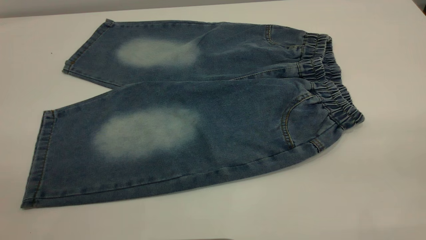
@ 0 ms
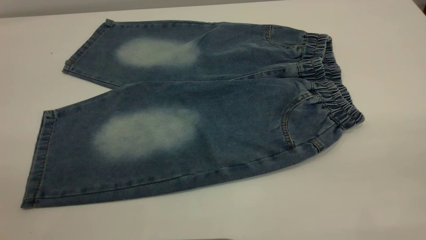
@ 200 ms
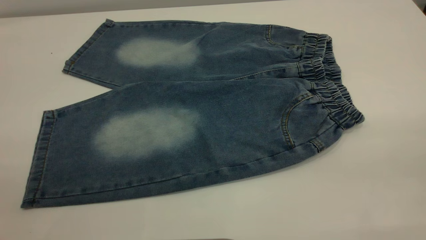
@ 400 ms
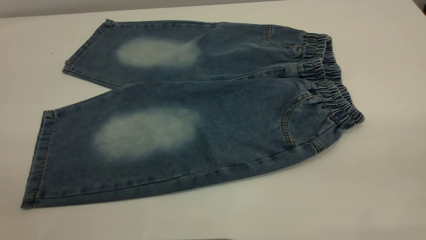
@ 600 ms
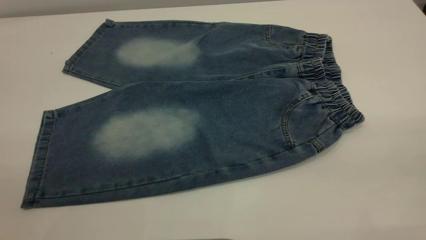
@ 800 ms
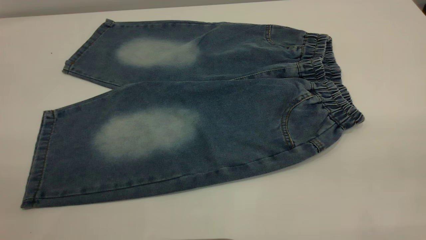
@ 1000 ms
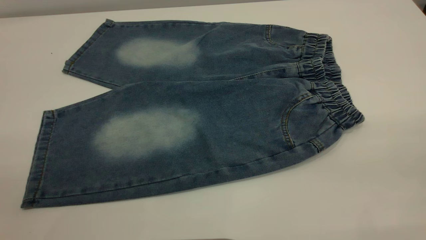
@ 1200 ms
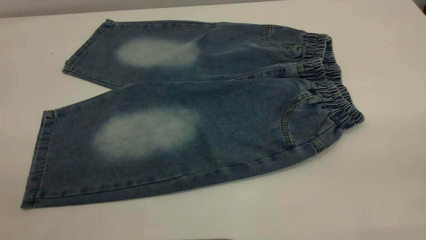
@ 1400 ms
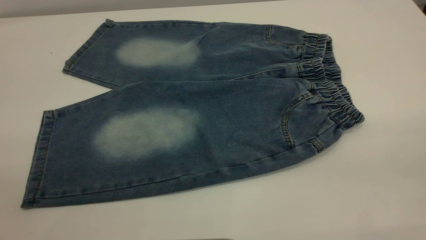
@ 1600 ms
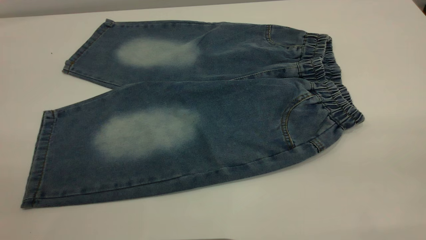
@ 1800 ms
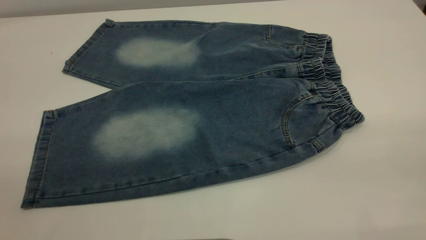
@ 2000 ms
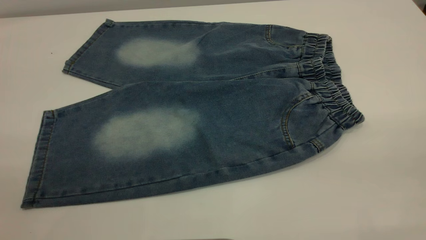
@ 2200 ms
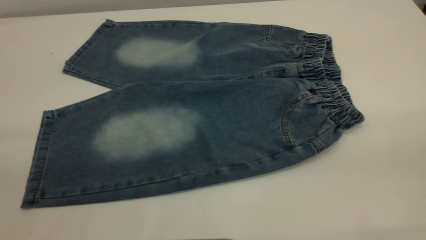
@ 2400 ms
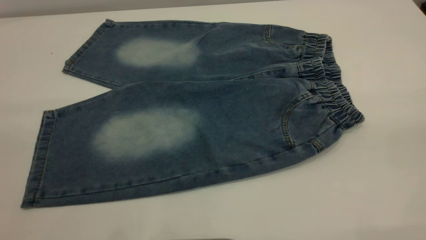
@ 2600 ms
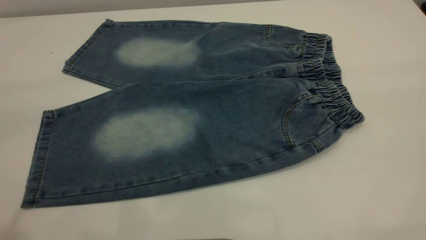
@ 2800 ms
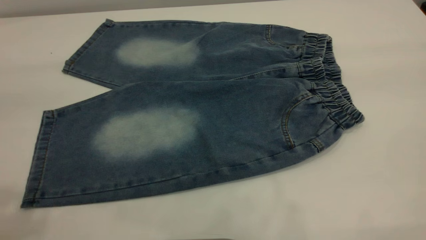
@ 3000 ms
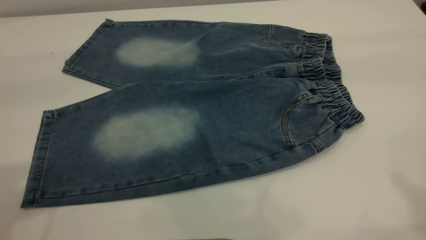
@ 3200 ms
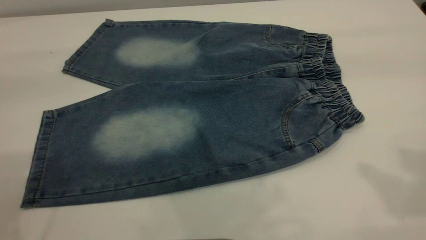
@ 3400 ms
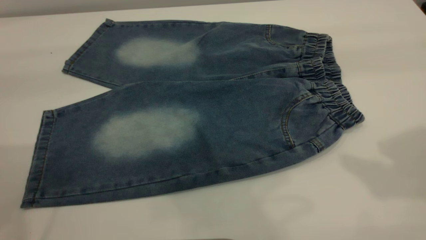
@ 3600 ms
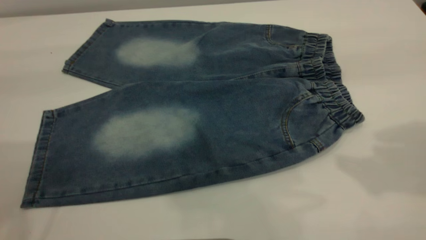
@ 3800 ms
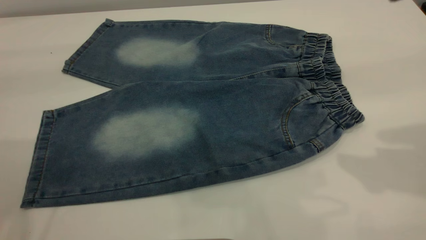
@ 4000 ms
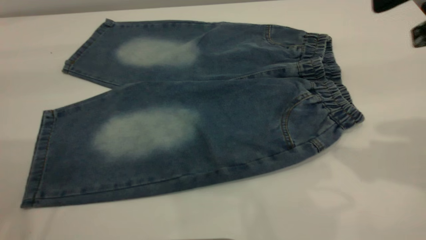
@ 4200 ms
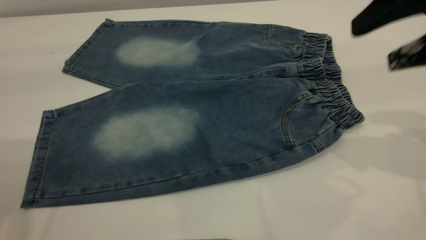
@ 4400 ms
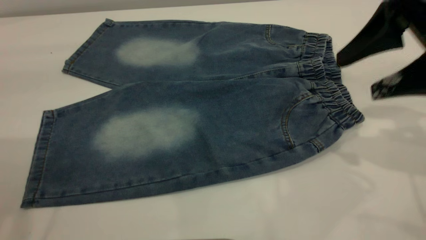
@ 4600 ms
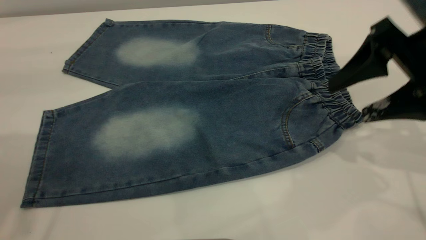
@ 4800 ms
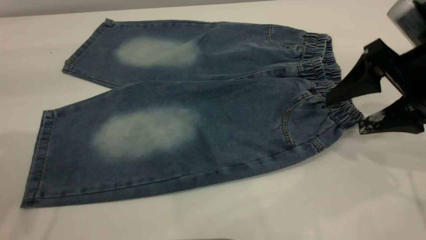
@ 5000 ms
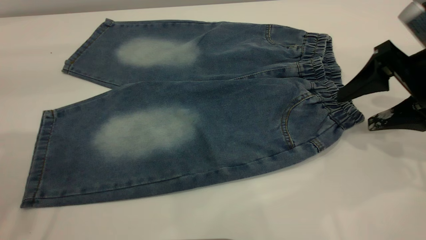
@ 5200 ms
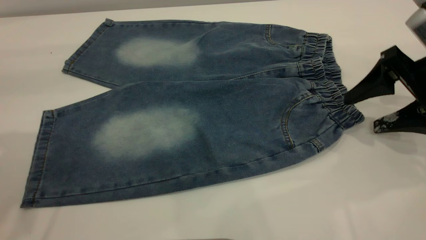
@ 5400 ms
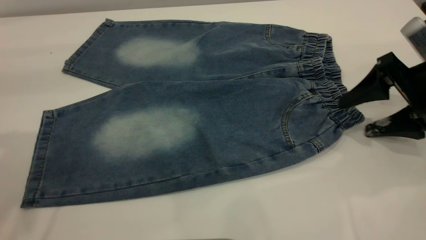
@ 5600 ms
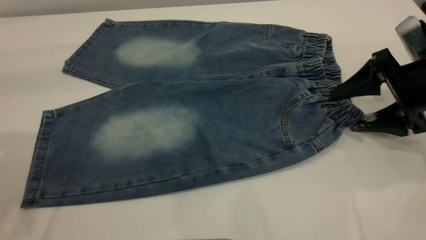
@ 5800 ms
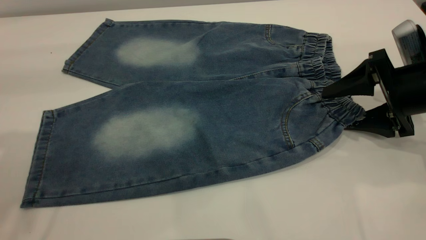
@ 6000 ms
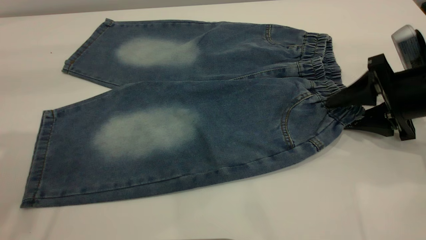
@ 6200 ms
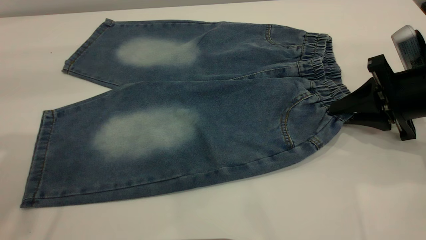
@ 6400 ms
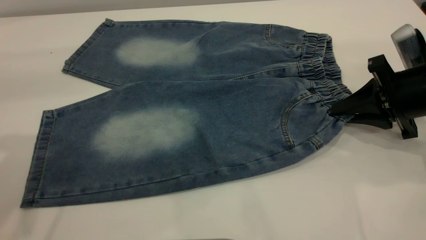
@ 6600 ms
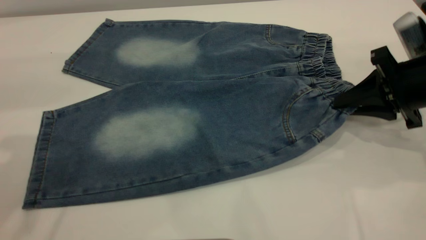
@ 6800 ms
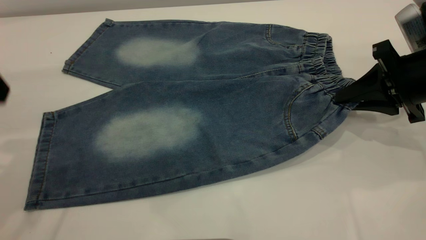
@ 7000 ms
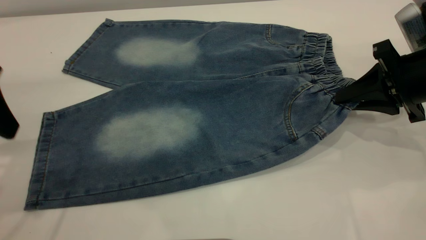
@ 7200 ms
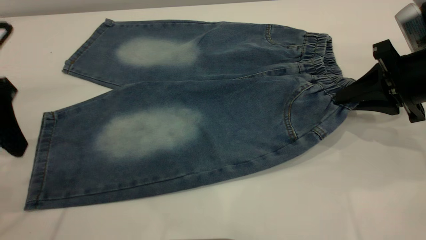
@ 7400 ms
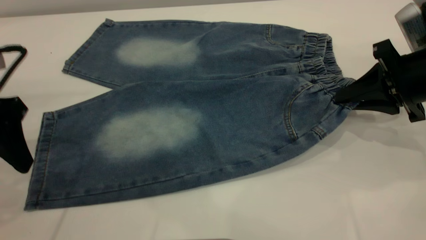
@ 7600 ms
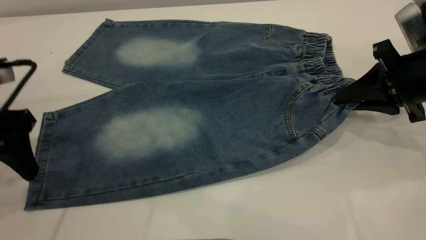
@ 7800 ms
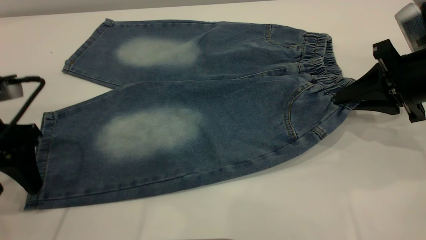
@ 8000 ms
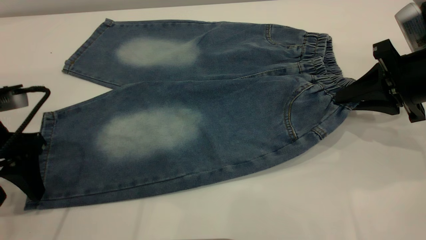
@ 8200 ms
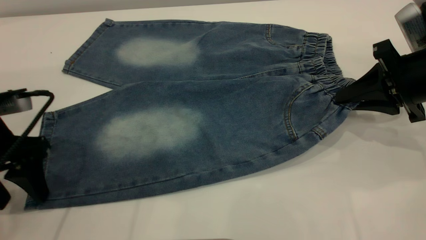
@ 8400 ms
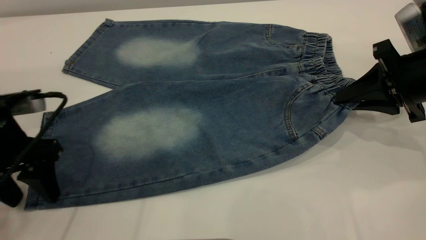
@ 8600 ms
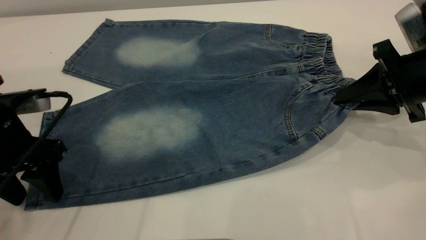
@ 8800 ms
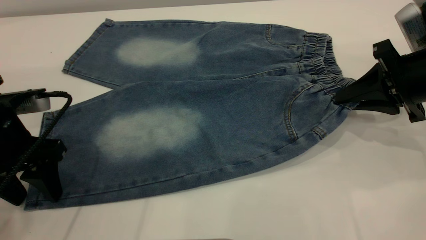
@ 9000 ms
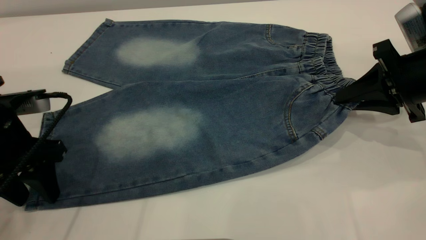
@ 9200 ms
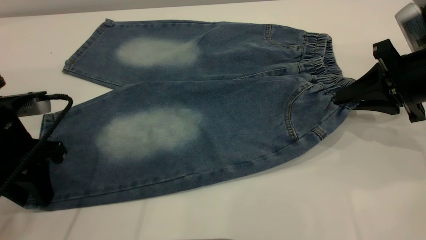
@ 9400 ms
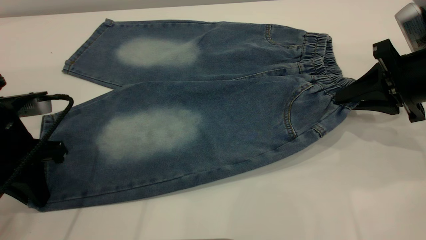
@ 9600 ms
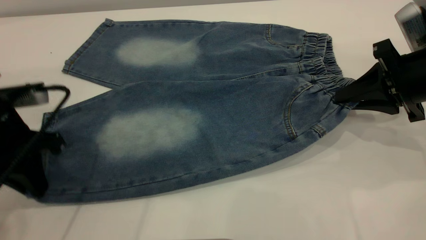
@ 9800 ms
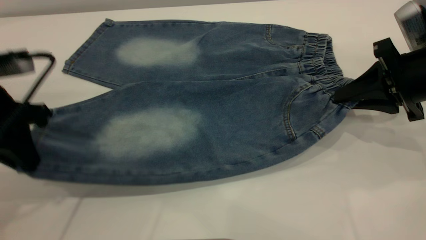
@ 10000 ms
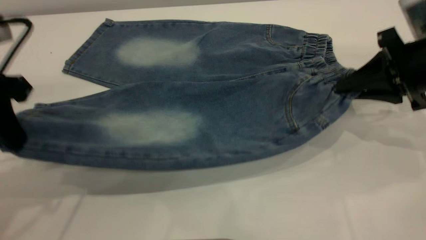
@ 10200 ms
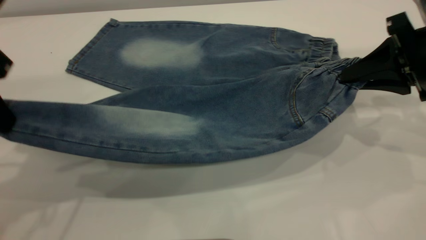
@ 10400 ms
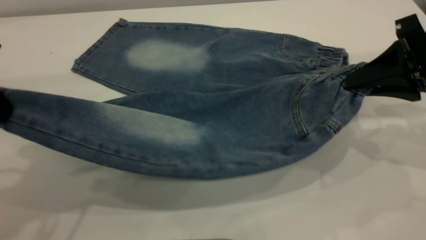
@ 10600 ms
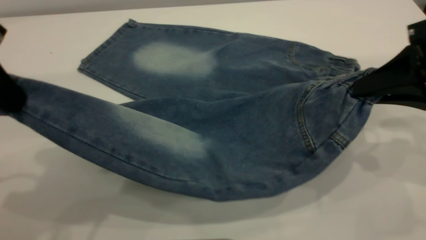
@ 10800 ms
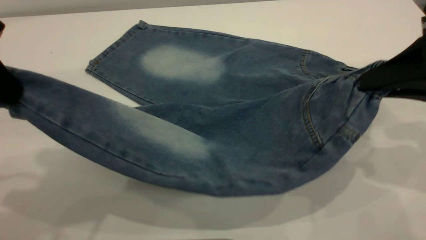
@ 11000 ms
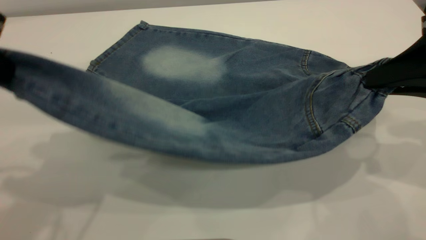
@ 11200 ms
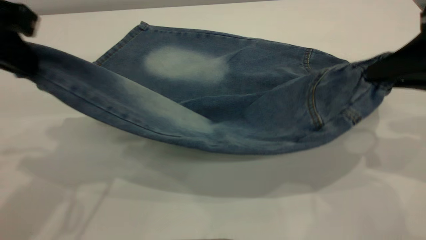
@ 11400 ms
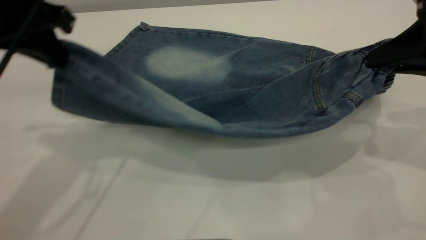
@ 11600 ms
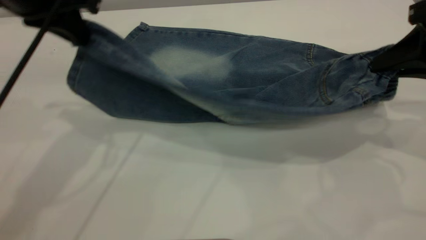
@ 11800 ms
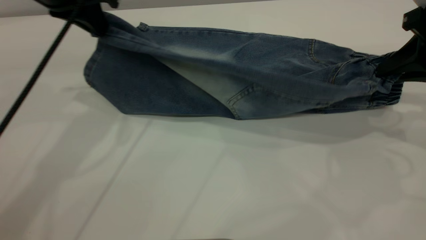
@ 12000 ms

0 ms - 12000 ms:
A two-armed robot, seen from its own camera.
0 ms - 1600 ms: The two grippers keep their place.
3000 ms - 4400 ms: The right gripper travels downward and forward by some 25 cm.
4400 ms - 6000 ms: The right gripper travels downward by roughly 15 cm.
6000 ms - 7600 ms: The right gripper closes up; the left gripper goes some 15 cm downward.
7600 ms - 9000 ms: The left gripper shifts some 5 cm downward.
9000 ms - 10400 ms: The left gripper is displaced upward by some 15 cm, and closes.
10400 ms - 12000 ms: The left gripper travels forward and to the right by approximately 15 cm.

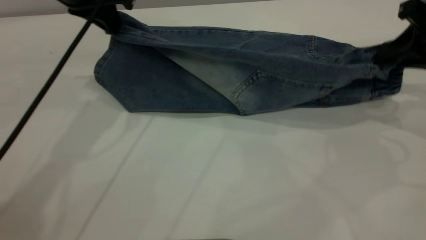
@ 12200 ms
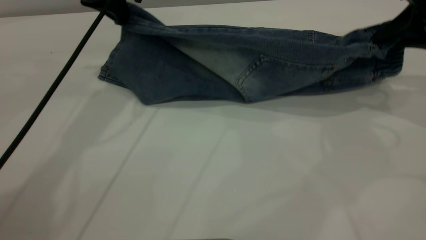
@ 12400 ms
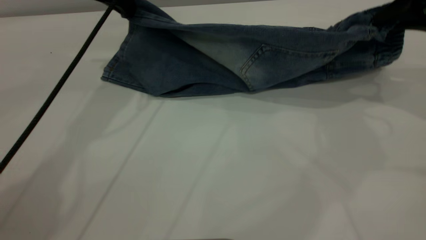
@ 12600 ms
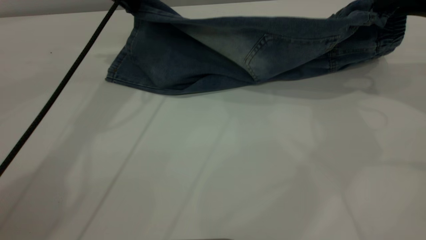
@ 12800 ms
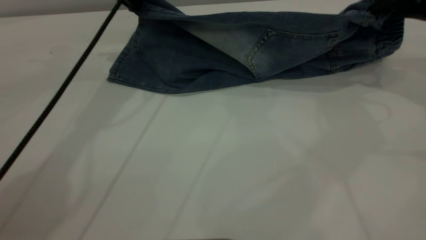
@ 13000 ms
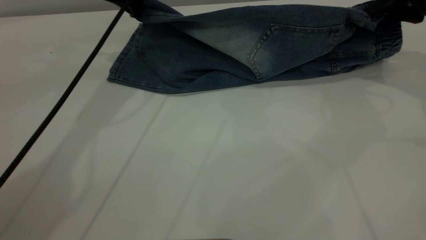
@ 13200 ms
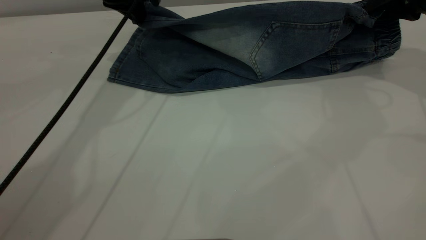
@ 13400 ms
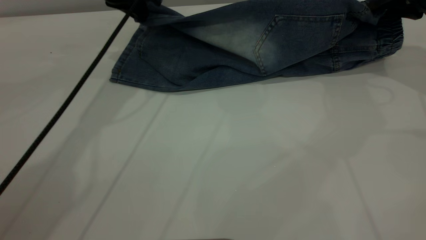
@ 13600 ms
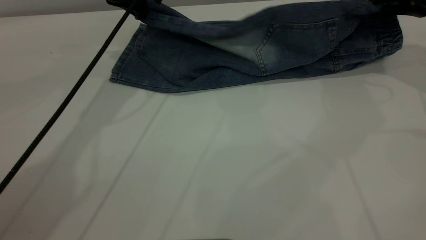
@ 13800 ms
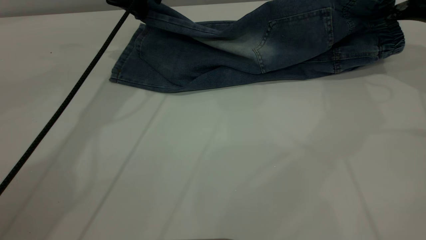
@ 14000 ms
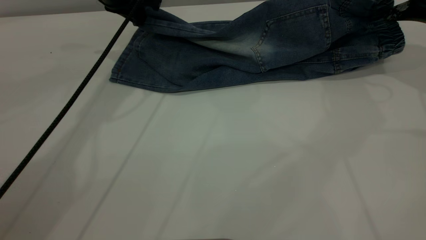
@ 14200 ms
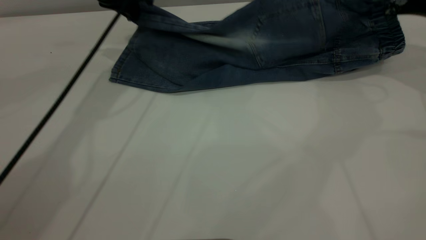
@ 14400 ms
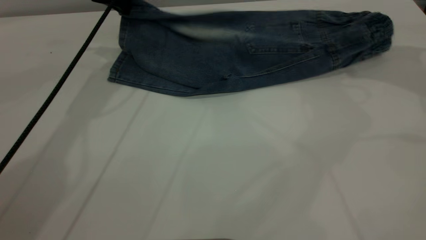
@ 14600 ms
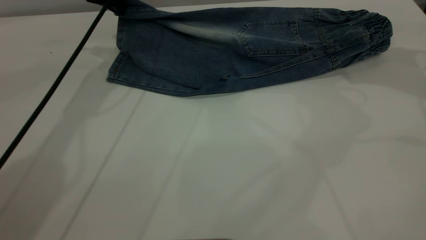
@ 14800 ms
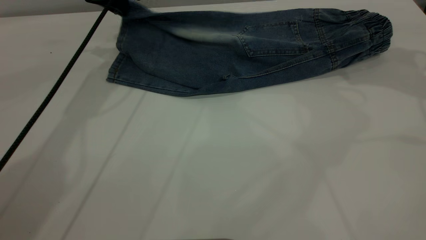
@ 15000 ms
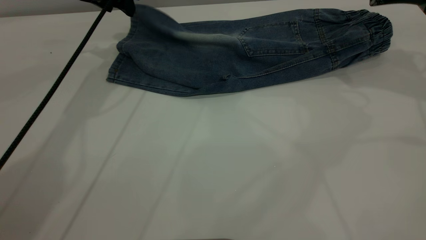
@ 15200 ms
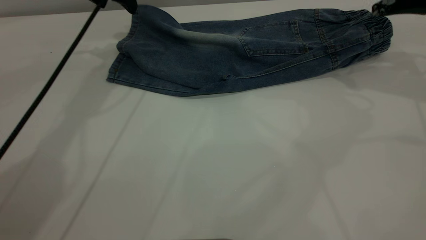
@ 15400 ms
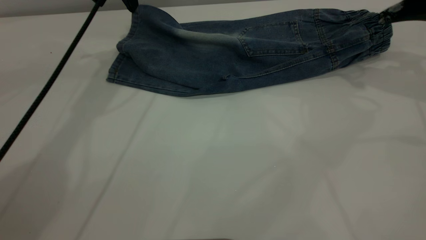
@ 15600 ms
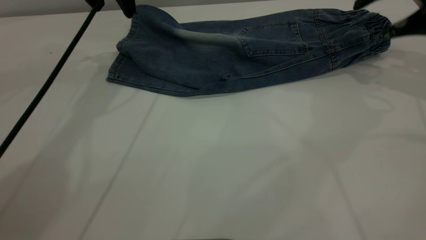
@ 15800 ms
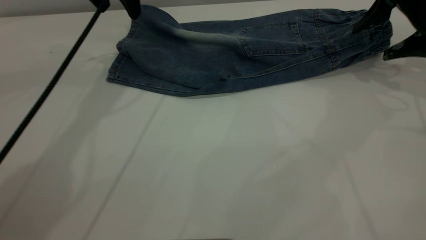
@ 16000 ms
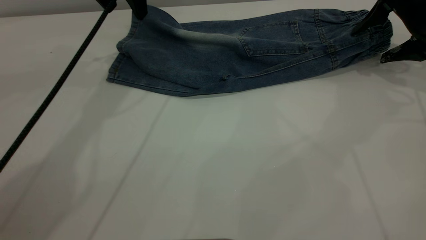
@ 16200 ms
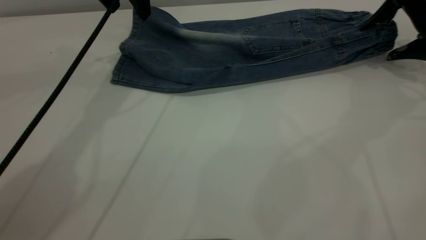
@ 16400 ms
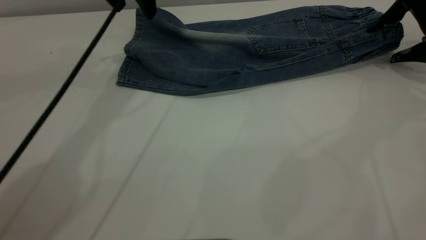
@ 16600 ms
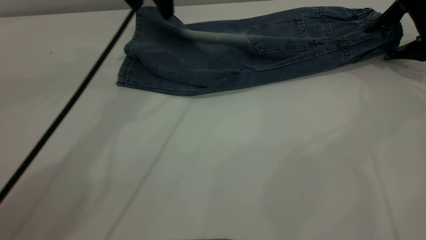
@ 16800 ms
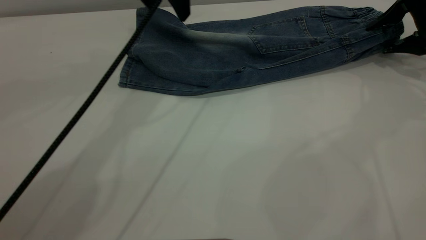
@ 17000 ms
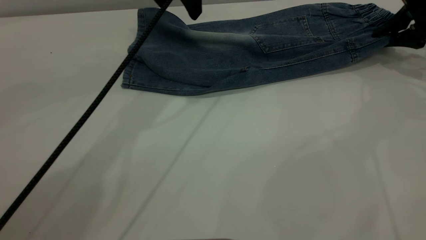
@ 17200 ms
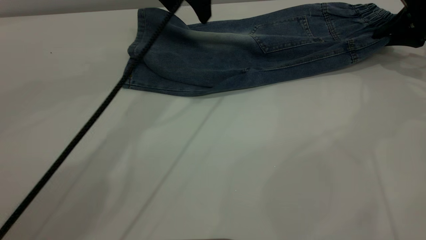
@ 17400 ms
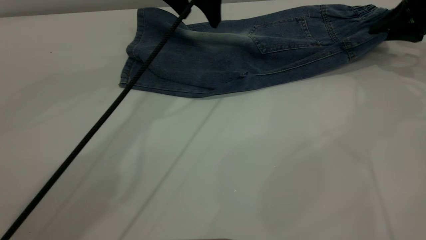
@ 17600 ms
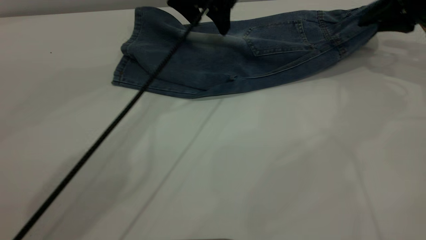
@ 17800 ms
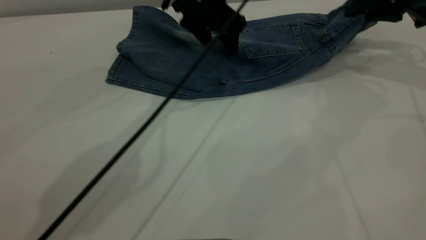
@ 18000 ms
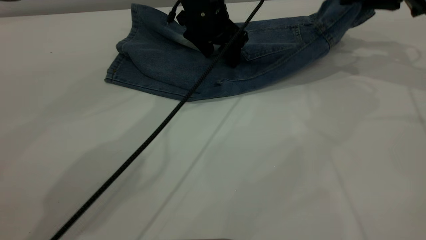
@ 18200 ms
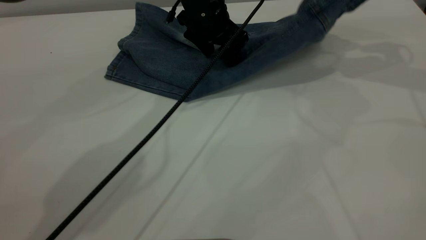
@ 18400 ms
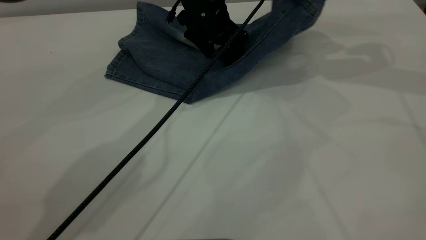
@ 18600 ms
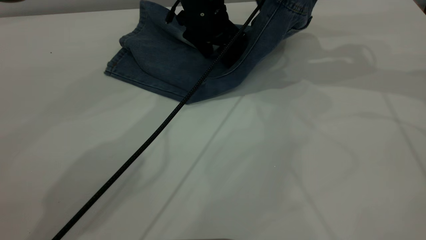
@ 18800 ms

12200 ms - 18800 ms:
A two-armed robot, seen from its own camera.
Step, 12200 ms - 15400 ms: Fold the bottom of the pants upward.
12200 ms - 13800 ms: The grippers both shift forward by roughly 10 cm. The right gripper opens up.
13800 ms - 15400 ms: The right gripper ends up some 5 cm from where it was, and opens up. Meanwhile the left gripper opens.
15400 ms - 17200 ms: The left gripper is displaced to the right by some 10 cm; the right gripper heads downward and to the right, covering roughly 10 cm, and closes.
17200 ms - 18800 ms: The right gripper shifts about 20 cm upward and to the left, while the left gripper travels downward by about 10 cm.
